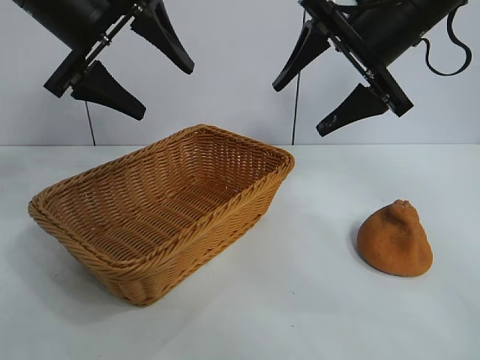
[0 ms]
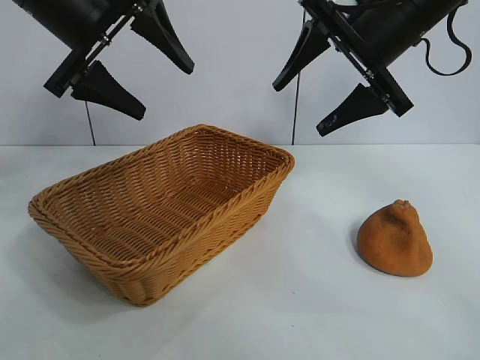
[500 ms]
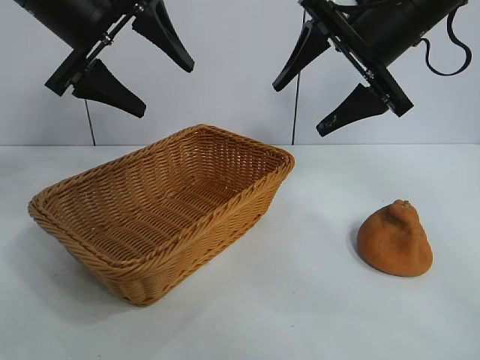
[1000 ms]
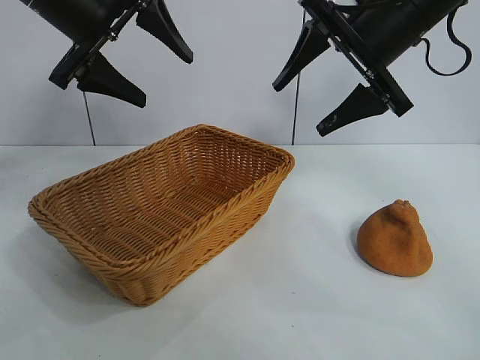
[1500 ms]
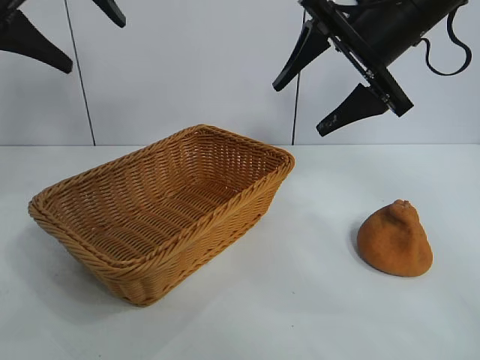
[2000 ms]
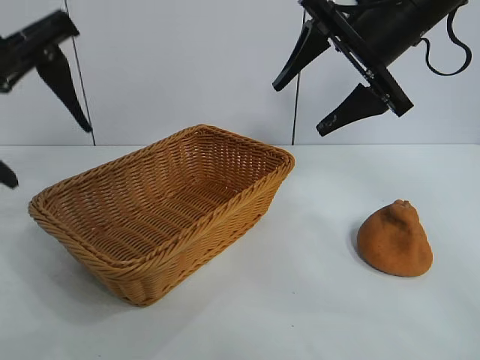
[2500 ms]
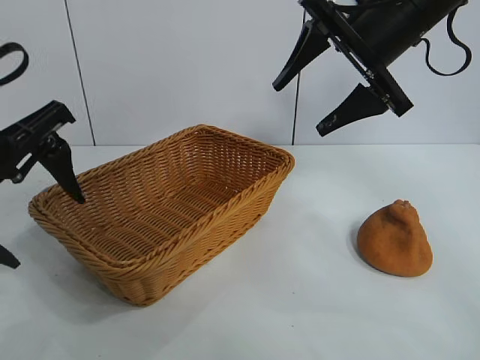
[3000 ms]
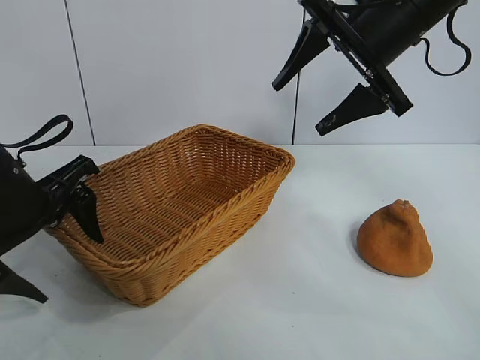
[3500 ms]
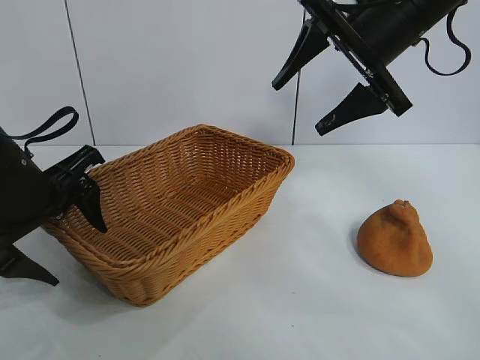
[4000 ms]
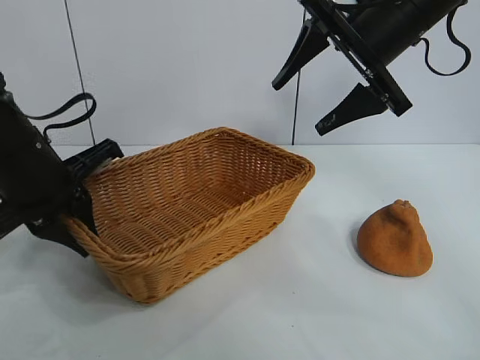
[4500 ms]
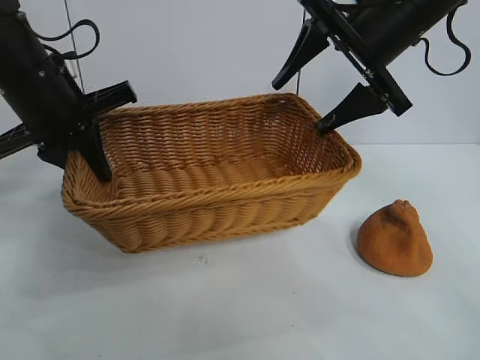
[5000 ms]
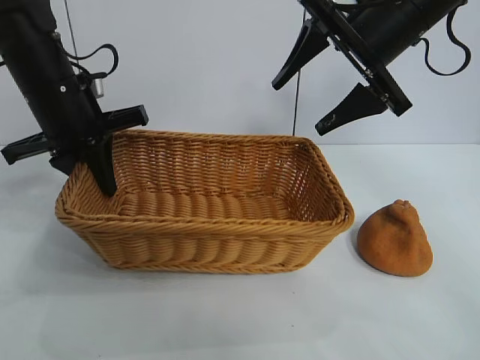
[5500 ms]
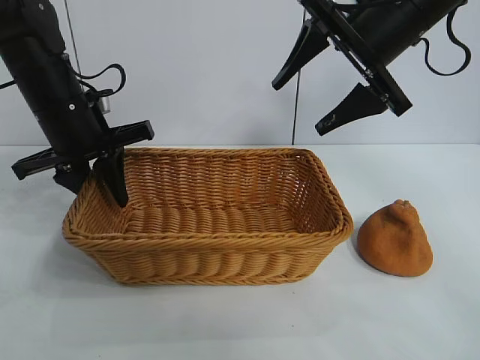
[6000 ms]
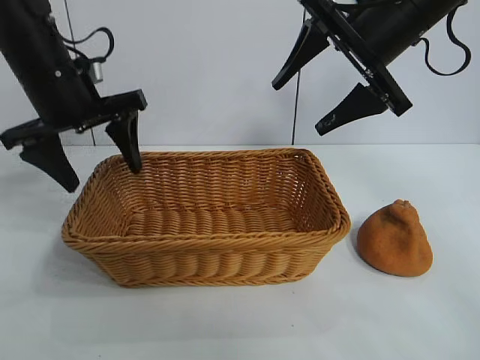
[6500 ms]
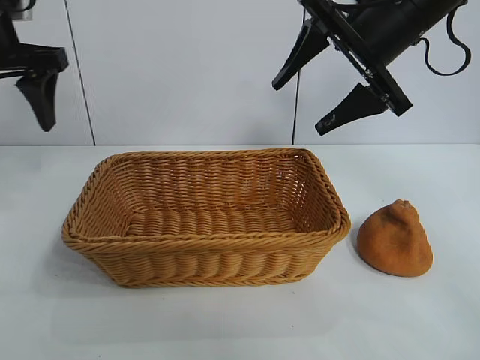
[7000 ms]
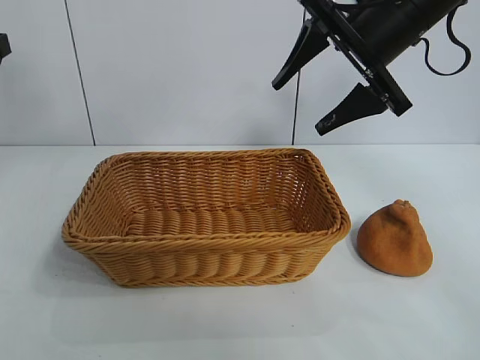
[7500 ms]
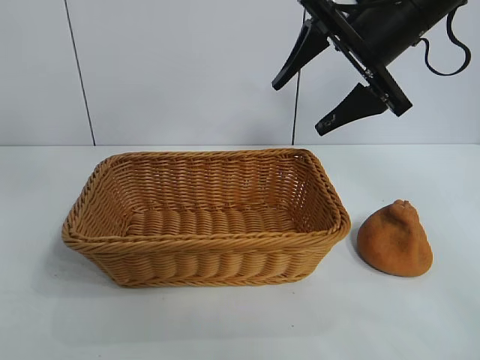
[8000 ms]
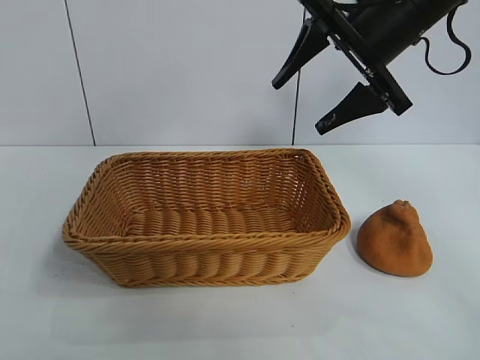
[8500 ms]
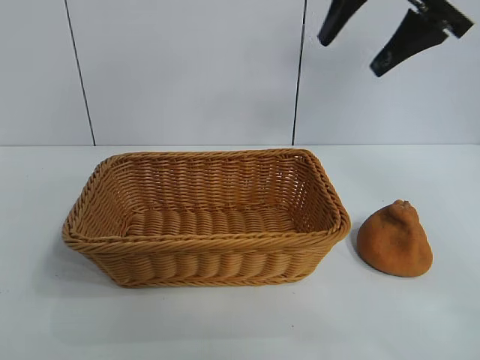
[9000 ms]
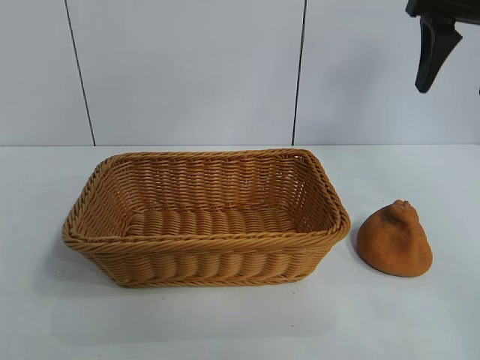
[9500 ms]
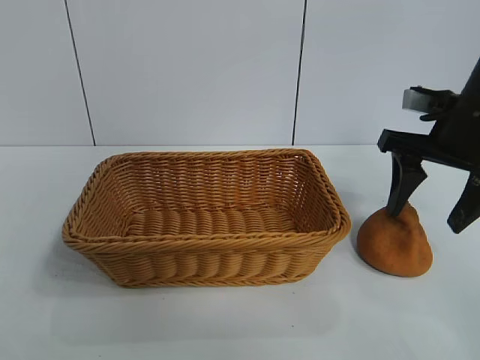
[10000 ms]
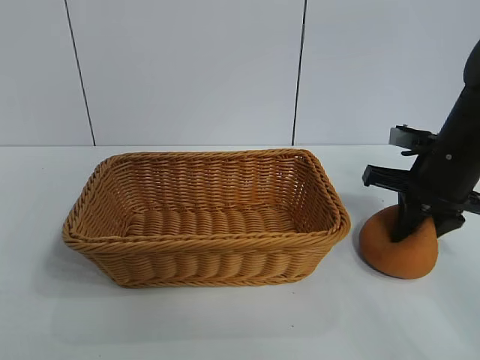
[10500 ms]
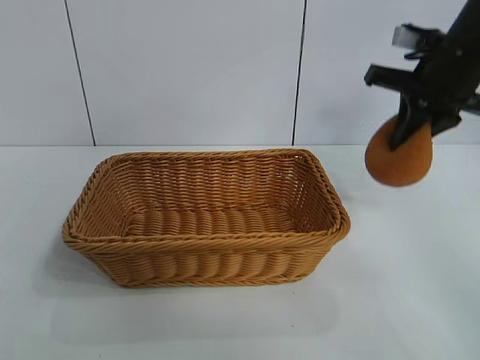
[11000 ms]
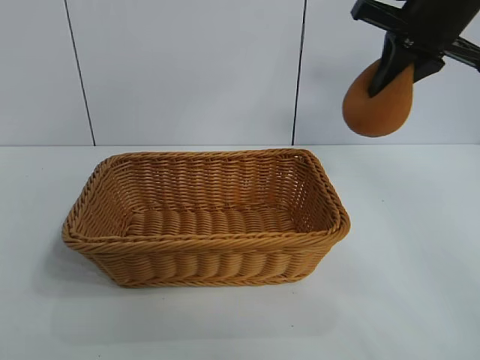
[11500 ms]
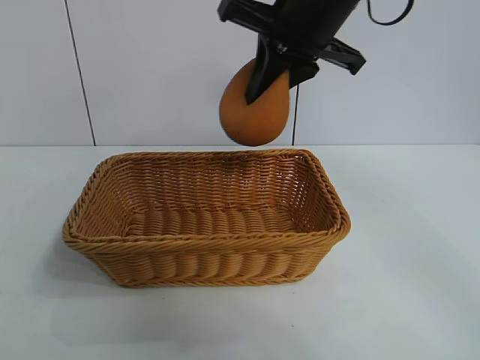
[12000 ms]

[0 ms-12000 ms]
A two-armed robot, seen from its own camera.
Task of the whole recording: pick up the orange and put it into the basket.
Step, 1000 ms to 4000 ms: Grasp the basket with left gripper.
Step, 4500 ms to 6000 ms: Place the basket in the center of view with left gripper.
Step, 6500 ms to 10500 ms: Grasp the orange with right gripper.
